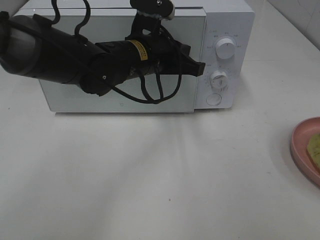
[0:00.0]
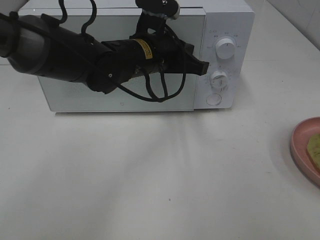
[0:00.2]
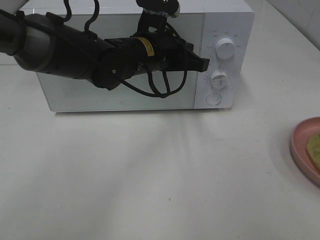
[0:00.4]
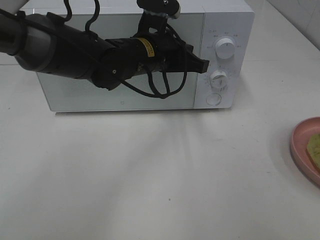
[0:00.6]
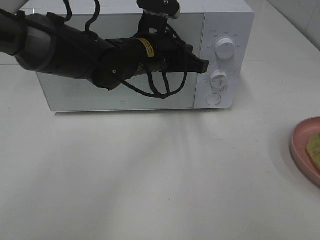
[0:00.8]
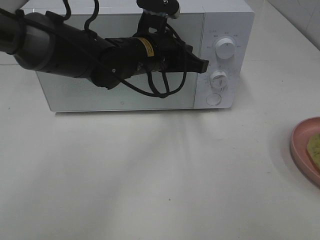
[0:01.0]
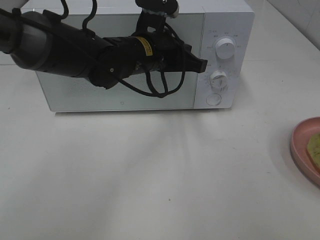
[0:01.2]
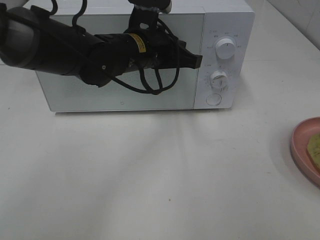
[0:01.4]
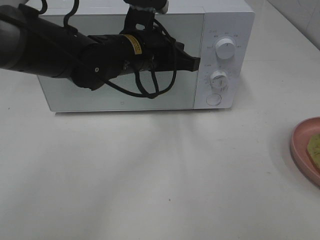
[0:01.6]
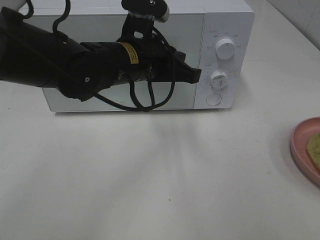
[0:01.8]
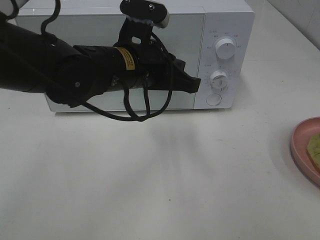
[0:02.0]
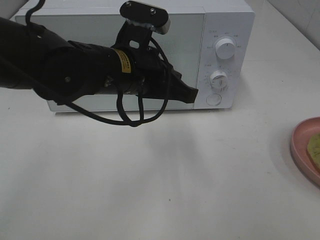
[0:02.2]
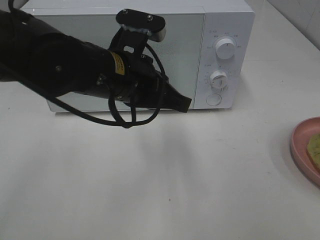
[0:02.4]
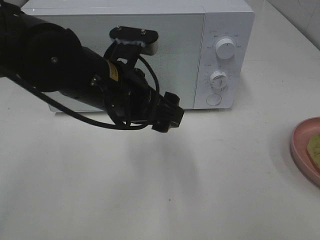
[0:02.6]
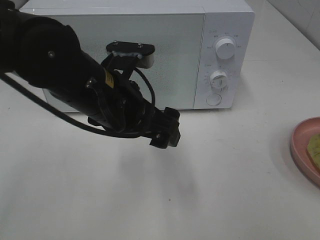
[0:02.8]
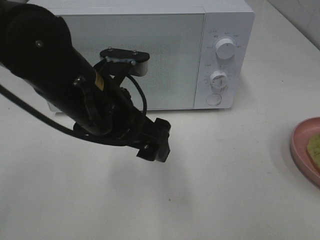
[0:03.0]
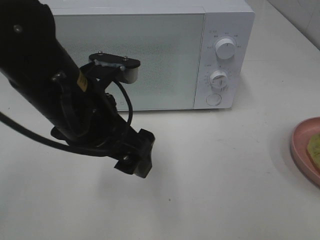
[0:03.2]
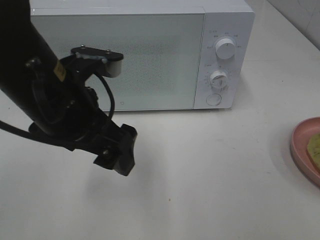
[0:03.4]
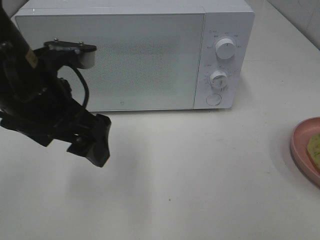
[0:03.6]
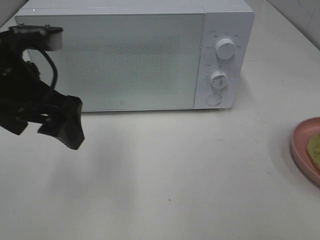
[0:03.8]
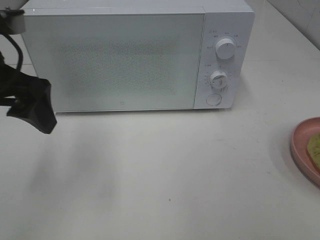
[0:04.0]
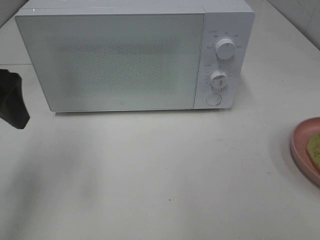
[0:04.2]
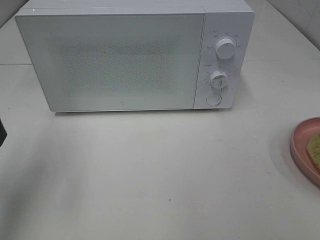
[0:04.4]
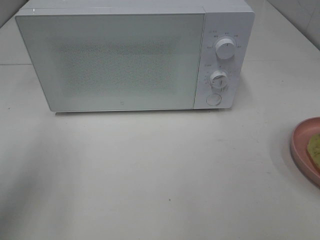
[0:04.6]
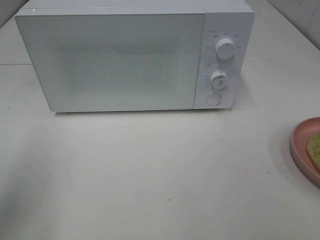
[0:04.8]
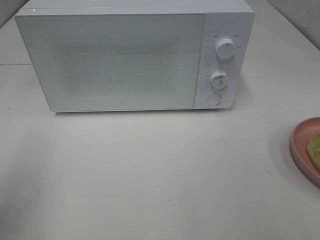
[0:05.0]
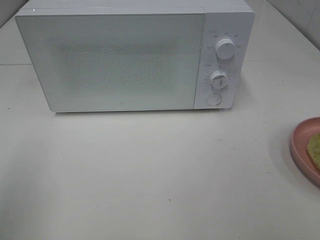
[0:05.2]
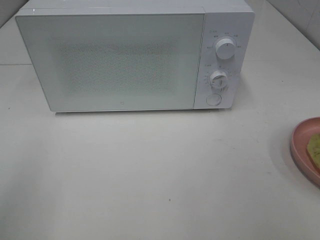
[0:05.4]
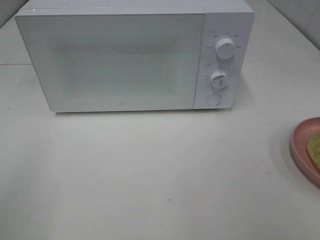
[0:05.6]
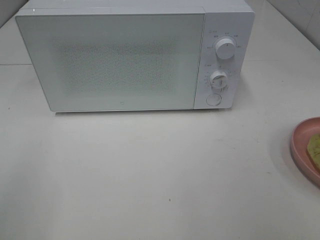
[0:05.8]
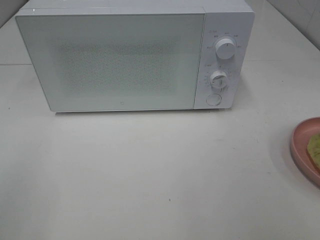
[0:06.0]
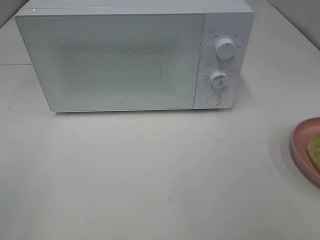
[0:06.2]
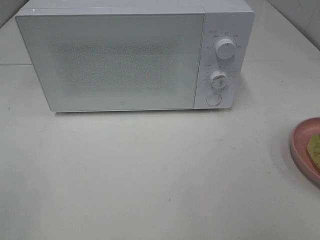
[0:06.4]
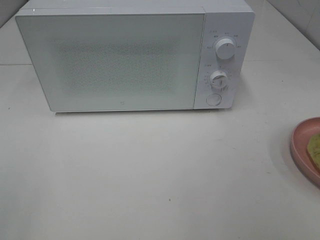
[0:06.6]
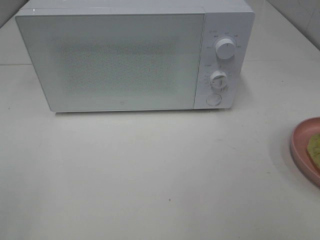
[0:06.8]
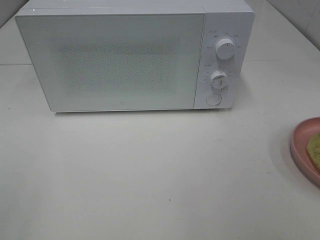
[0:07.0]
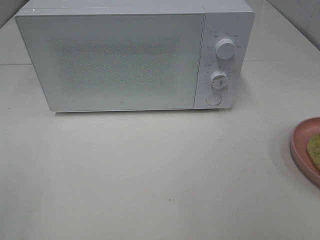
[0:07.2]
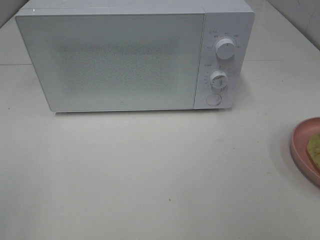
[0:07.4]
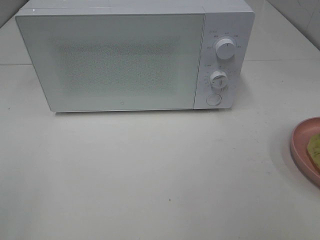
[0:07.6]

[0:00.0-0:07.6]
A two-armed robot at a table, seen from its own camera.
Task of the whole recording: Heat Sandwich.
0.0 to 1.6 s: The grippers make only small movements.
1.6 to 3.0 s: The left gripper travels backward by roughly 10 cm, and opens up.
3.0 to 4.6 s: The left gripper is displaced to the left by roughly 20 cm.
4.6 to 6.0 s: The left gripper heads backward, covering about 15 cm.

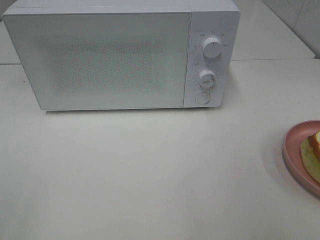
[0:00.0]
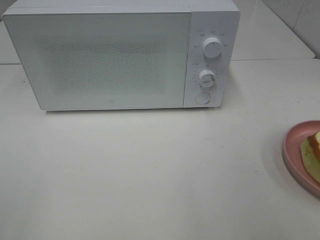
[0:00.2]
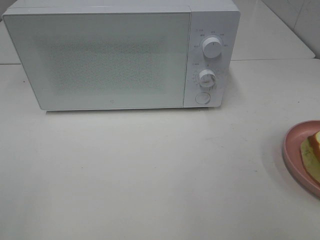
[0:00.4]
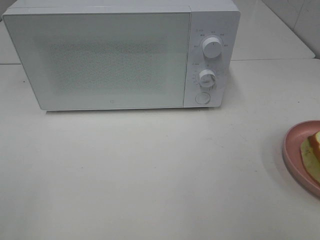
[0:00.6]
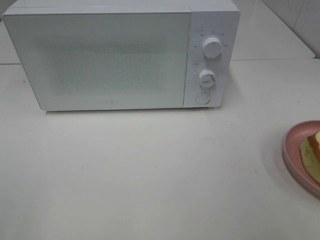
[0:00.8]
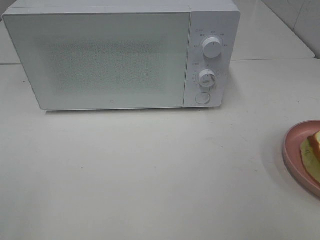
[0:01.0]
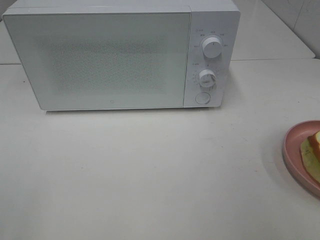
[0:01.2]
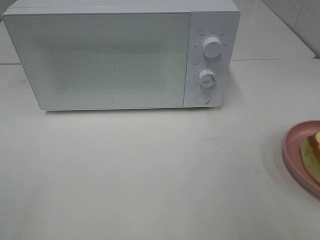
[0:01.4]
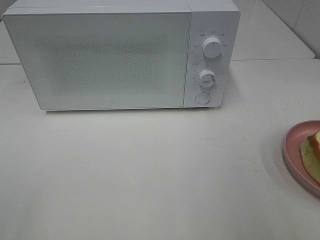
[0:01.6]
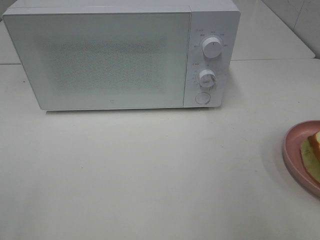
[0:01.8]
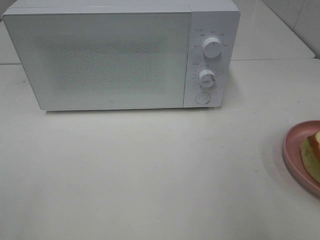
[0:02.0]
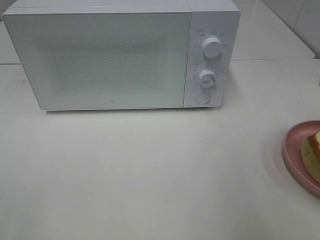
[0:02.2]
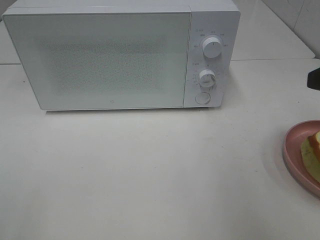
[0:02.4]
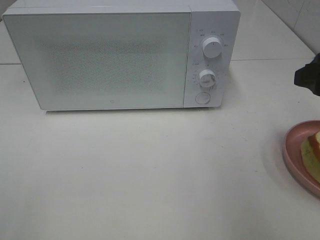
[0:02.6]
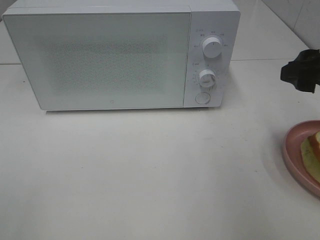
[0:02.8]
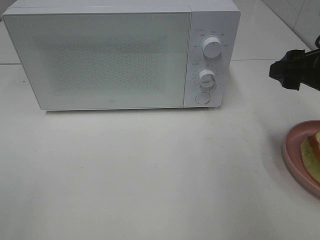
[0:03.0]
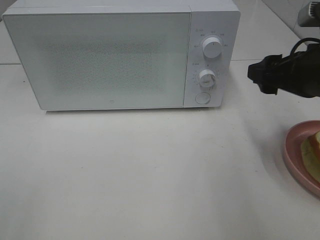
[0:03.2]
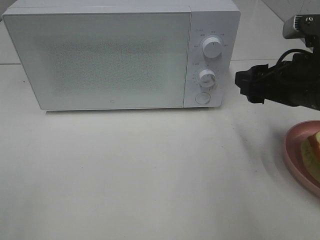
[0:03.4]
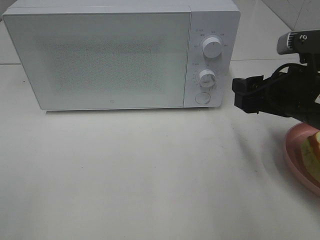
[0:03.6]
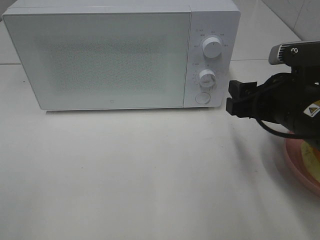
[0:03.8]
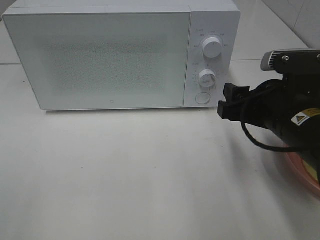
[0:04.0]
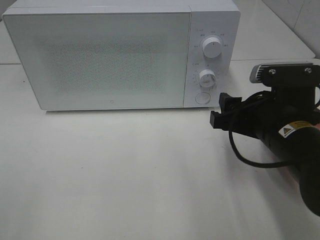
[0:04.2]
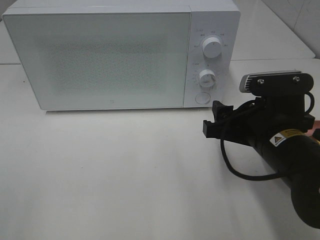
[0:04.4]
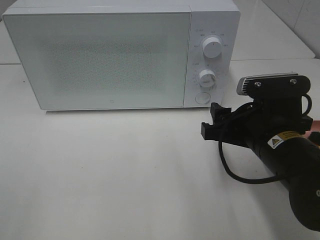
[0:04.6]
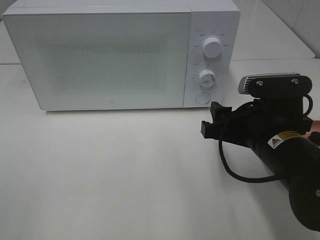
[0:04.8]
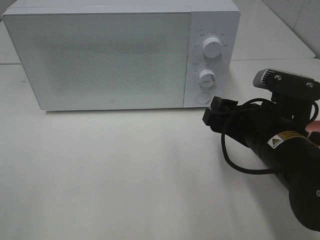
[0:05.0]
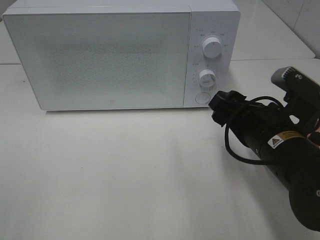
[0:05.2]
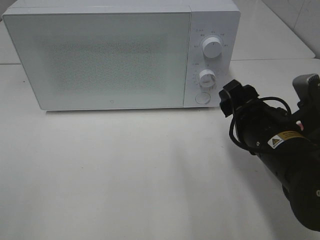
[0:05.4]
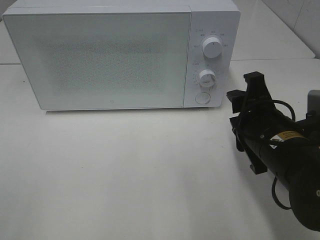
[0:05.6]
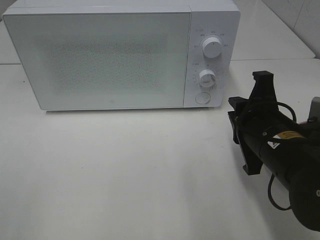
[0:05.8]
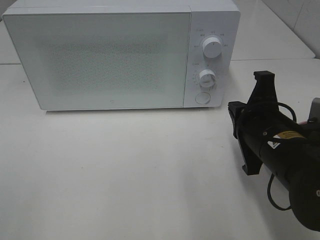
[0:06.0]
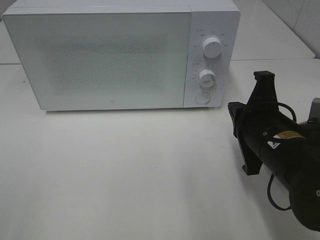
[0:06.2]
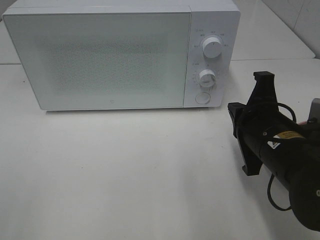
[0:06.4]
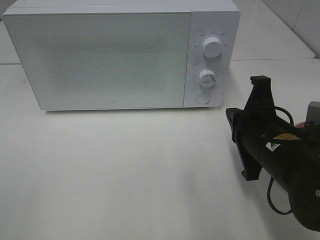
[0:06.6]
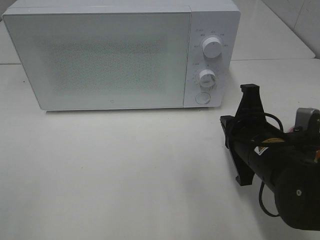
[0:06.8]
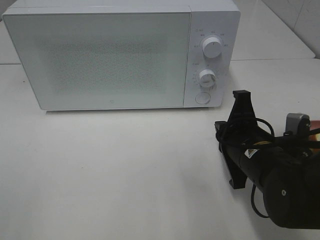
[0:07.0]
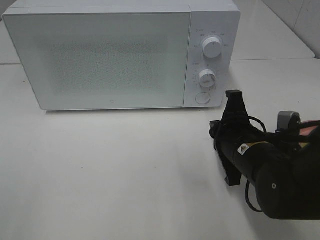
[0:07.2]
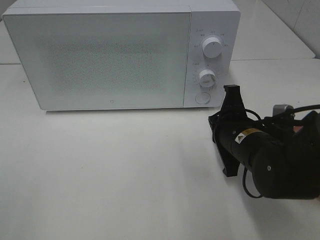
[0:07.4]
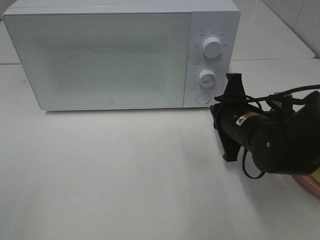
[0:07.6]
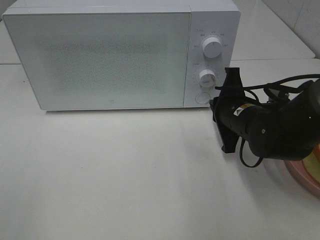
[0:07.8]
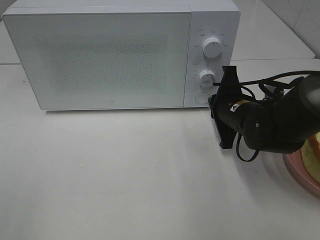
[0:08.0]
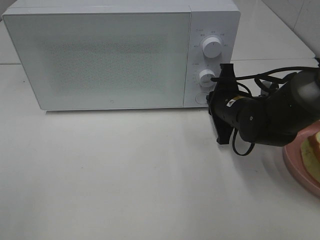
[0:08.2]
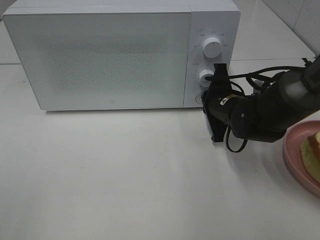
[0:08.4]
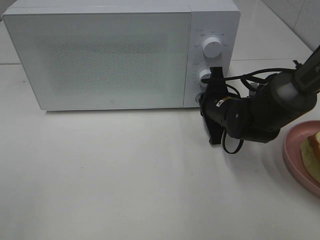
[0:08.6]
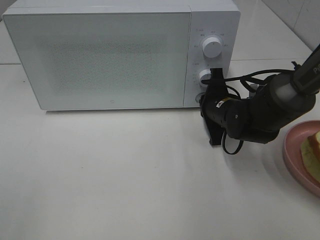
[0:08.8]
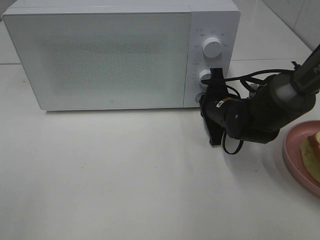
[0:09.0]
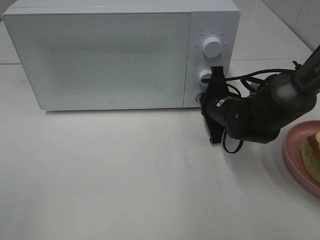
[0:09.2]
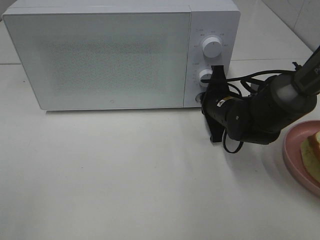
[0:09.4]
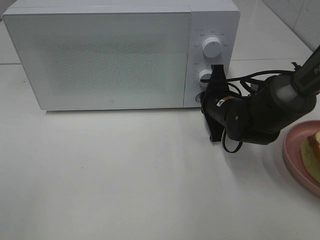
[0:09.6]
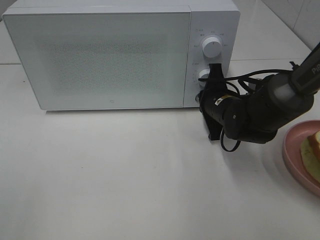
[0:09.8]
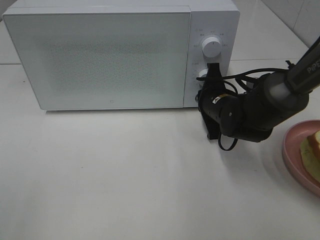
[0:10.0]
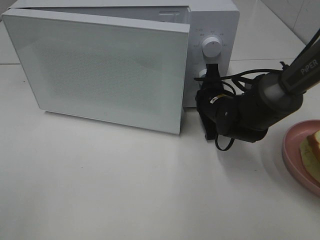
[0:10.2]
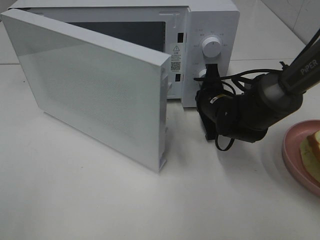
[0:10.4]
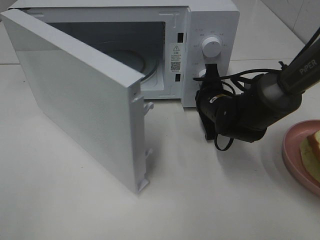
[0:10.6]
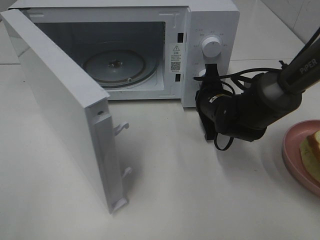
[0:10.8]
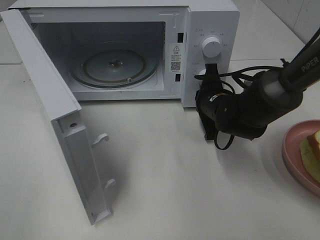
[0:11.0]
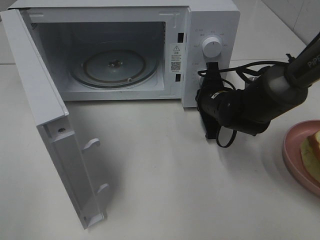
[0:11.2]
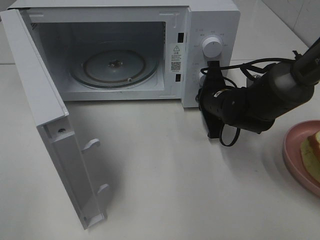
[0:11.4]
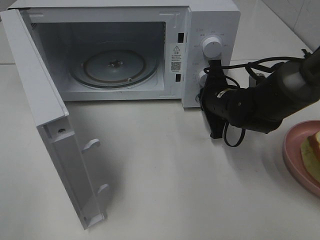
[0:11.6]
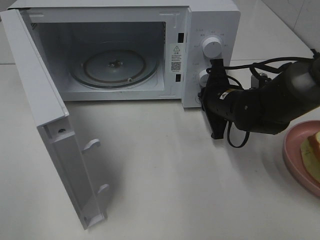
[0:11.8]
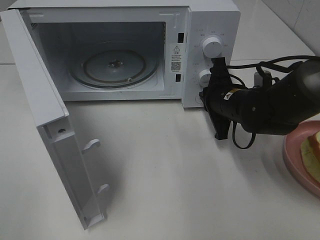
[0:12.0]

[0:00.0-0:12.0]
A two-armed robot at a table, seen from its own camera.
Task of the whole recording: Heat Sandwich.
1.6 to 3.0 s: The right gripper shifts approximately 20 cm forward and downward.
3.0 to 4.4 s: The right gripper heads to the left and downward, covering some 10 cm.
4.4 to 6.0 s: The right gripper closes up.
6.0 to 7.6 s: The right gripper moves forward, approximately 5 cm.
7.6 to 9.0 s: The right gripper goes approximately 10 cm forward.
9.0 to 10.4 s: There are only small adjustments of the grippers.

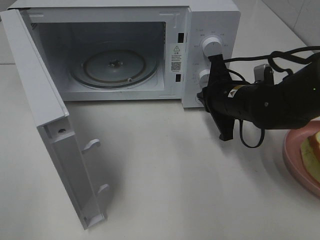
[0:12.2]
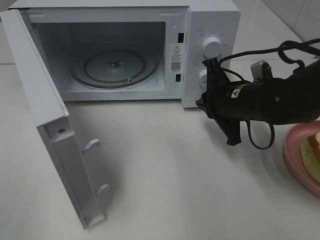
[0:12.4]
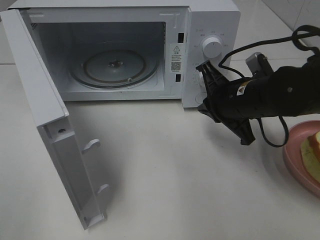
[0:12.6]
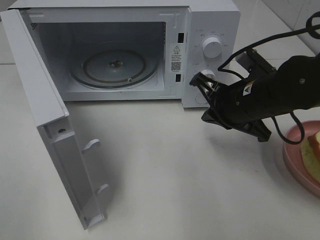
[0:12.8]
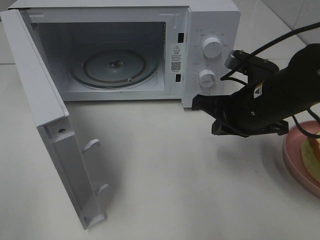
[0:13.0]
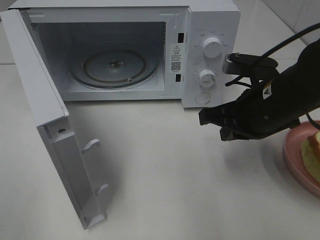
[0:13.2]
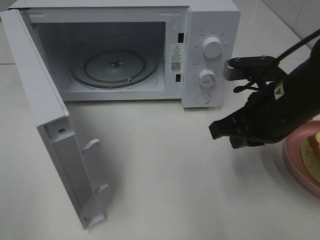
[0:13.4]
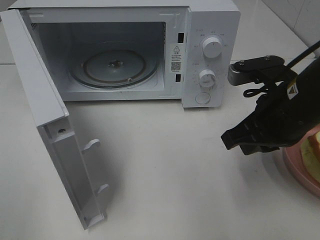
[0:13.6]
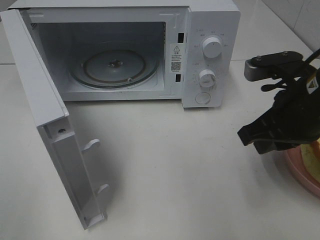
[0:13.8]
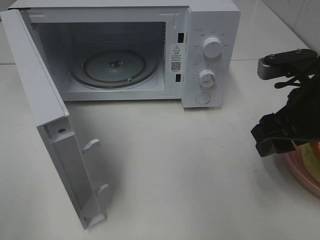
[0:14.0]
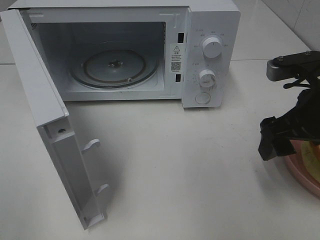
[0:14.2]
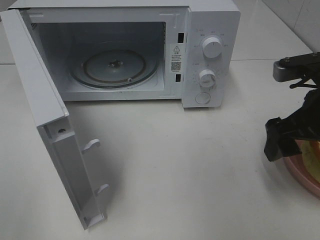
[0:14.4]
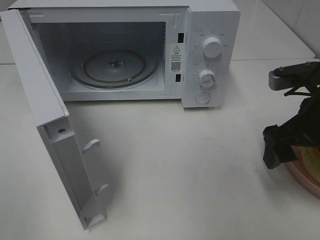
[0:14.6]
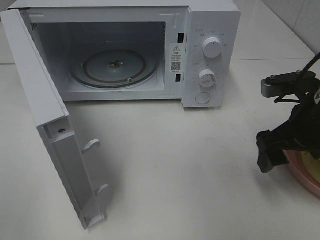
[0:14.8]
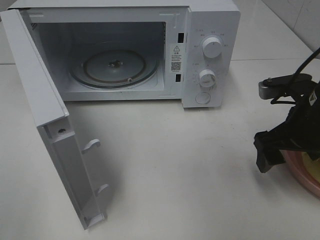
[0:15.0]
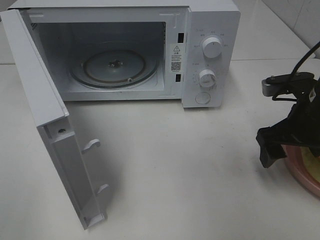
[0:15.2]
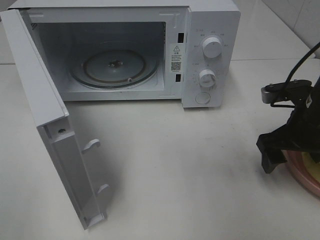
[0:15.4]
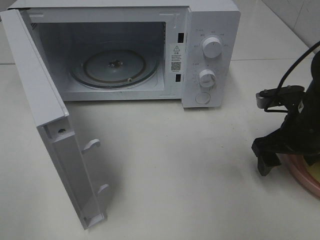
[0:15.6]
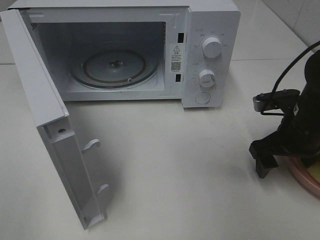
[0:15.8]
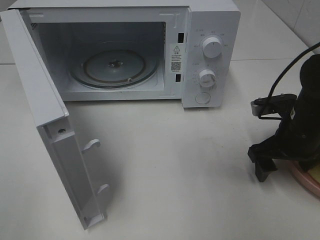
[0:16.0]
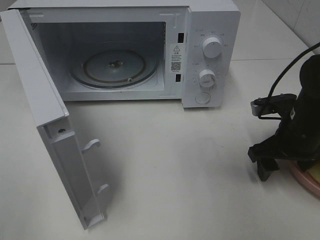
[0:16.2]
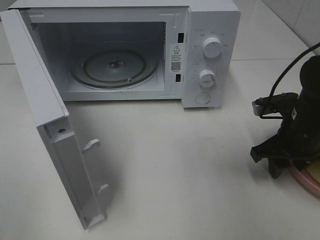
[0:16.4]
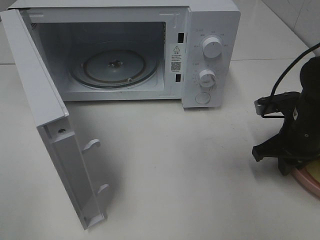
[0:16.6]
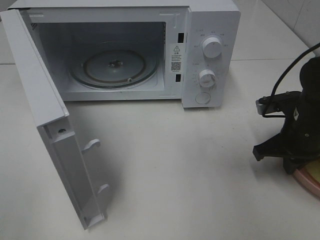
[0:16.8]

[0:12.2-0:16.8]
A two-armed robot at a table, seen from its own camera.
Task of the whole recording: Heat Sandwich.
12.2 to 13.8 s: The right gripper moves backward, upward and to the right, roughly 15 cm.
13.8 to 15.2 s: The right gripper moves some 5 cm, and opens.
15.2 to 16.8 s: The right gripper changes place by roughly 5 cm, and closes its fingers.
